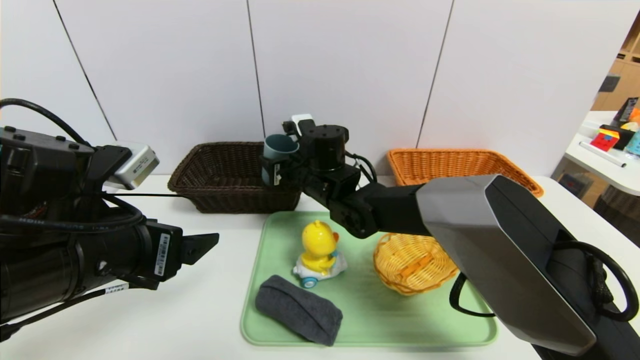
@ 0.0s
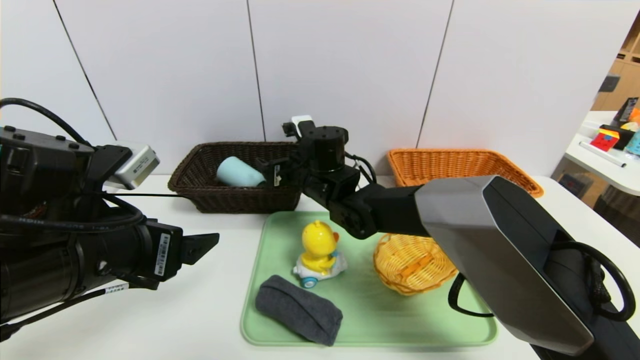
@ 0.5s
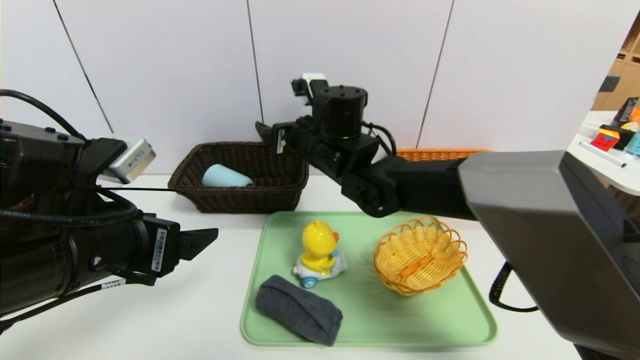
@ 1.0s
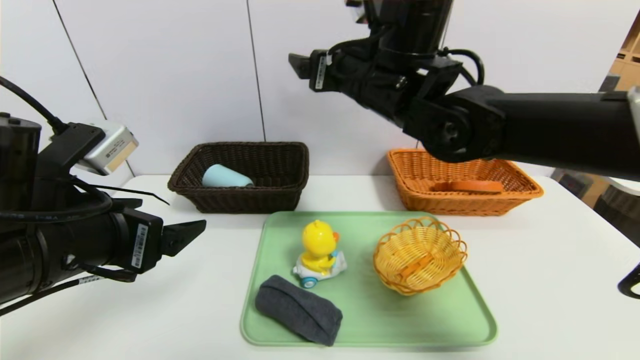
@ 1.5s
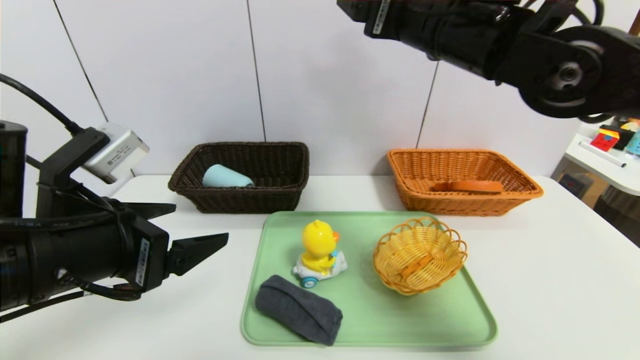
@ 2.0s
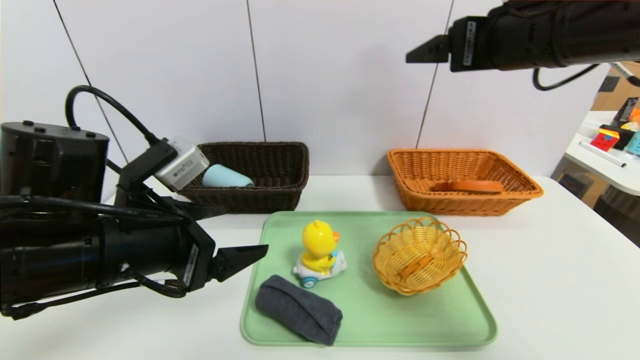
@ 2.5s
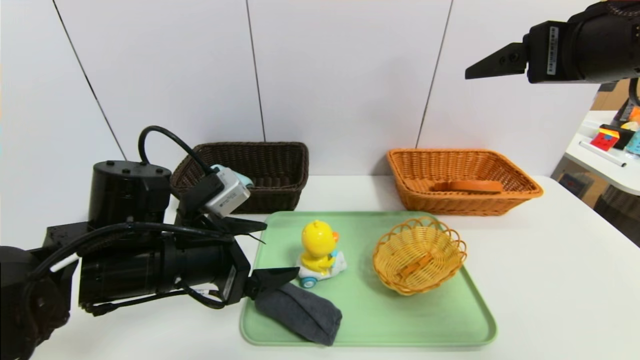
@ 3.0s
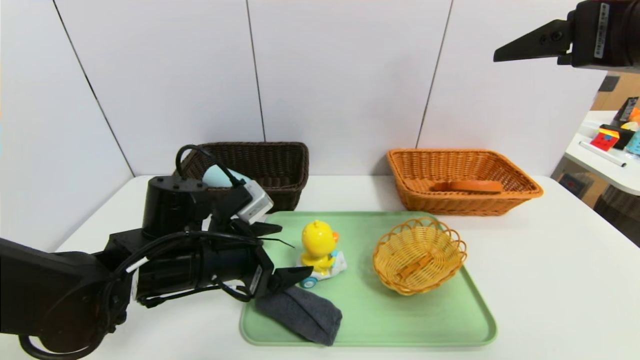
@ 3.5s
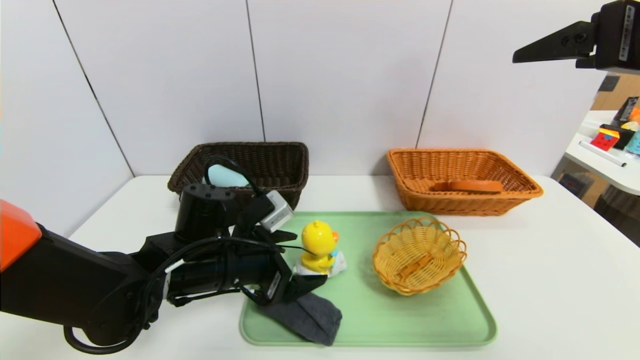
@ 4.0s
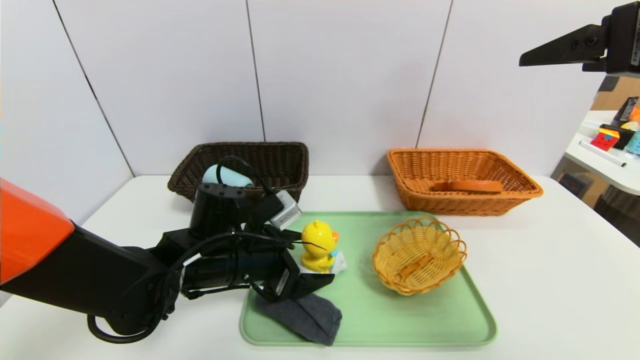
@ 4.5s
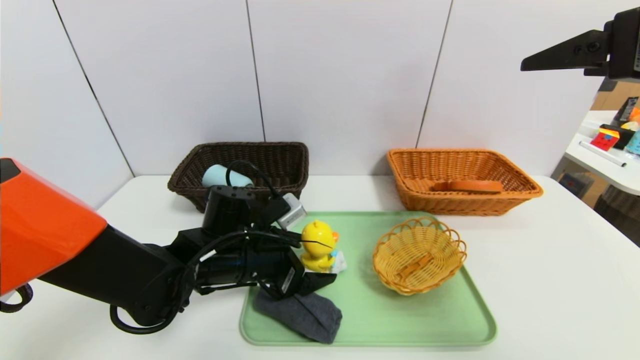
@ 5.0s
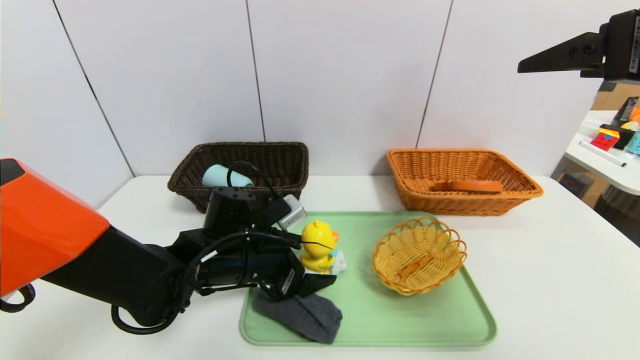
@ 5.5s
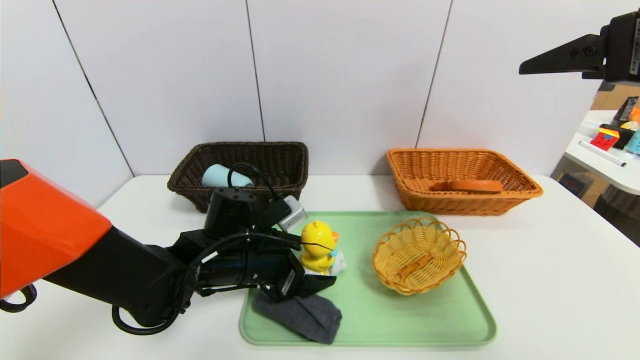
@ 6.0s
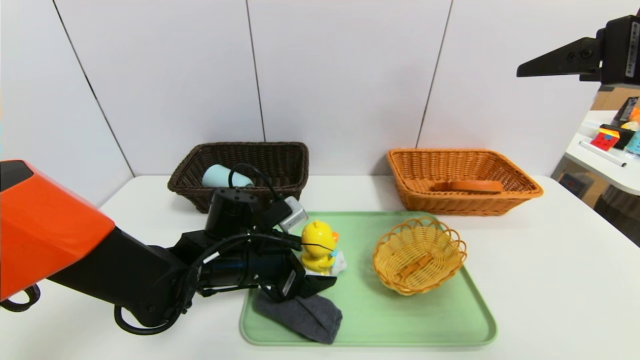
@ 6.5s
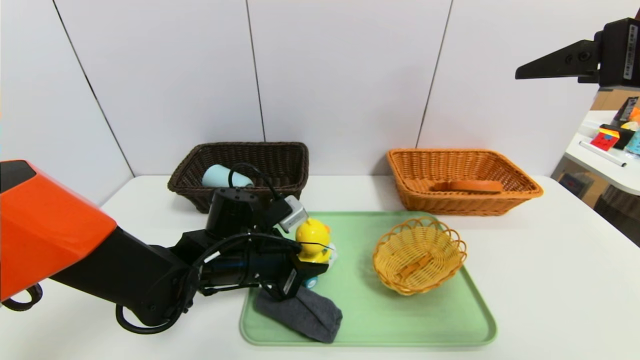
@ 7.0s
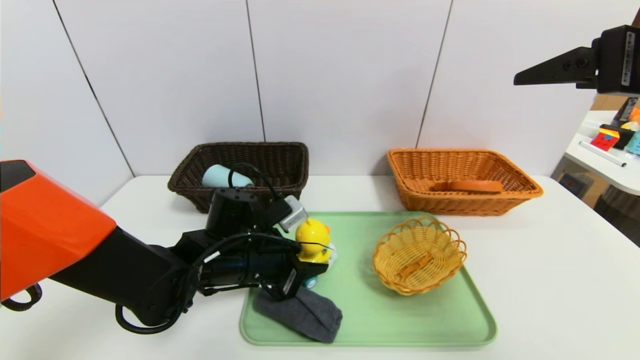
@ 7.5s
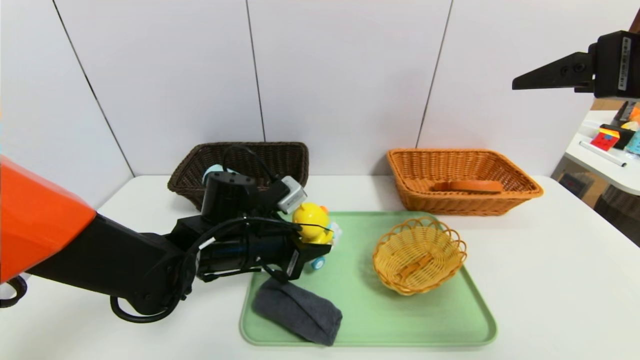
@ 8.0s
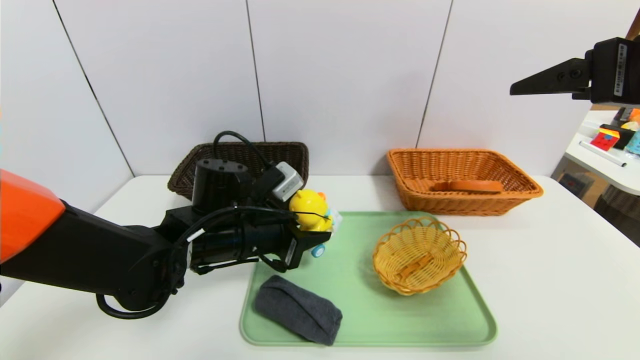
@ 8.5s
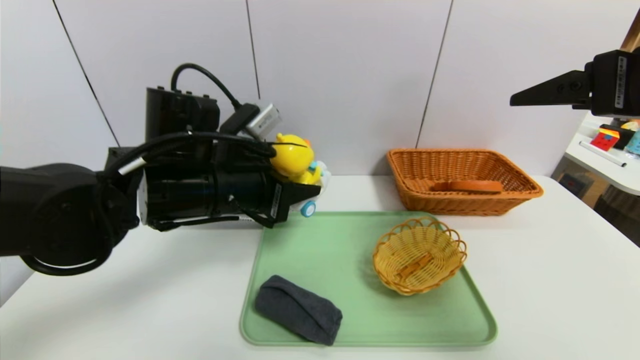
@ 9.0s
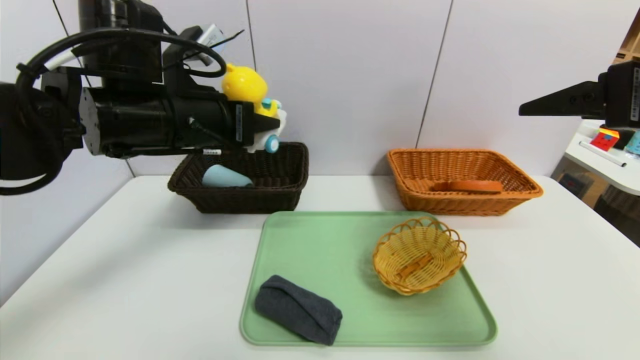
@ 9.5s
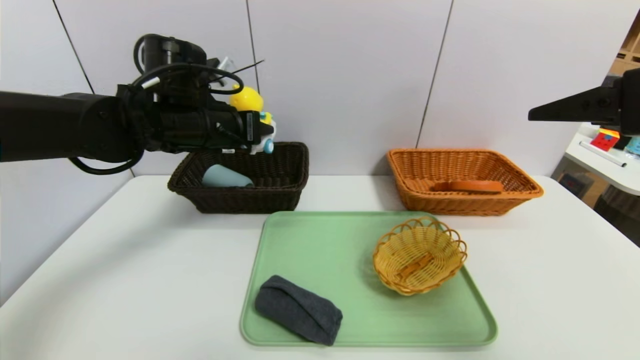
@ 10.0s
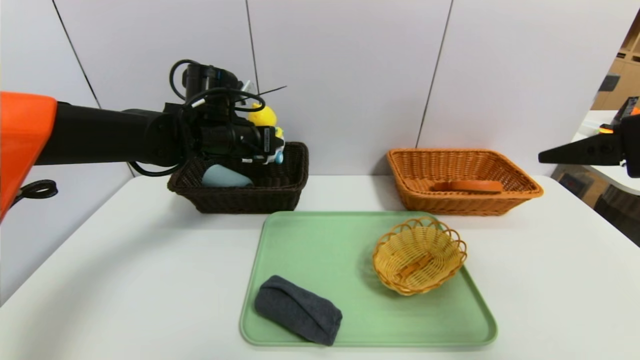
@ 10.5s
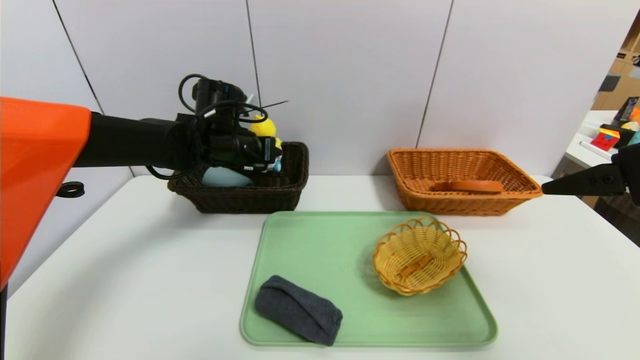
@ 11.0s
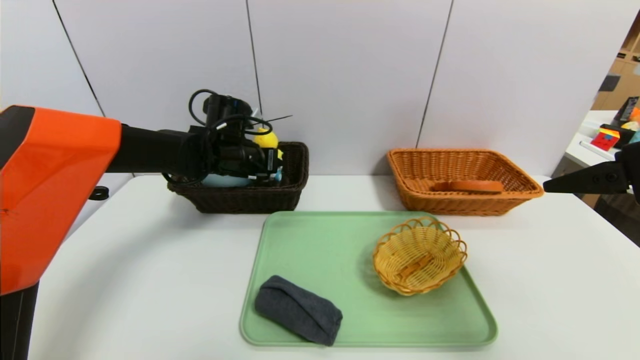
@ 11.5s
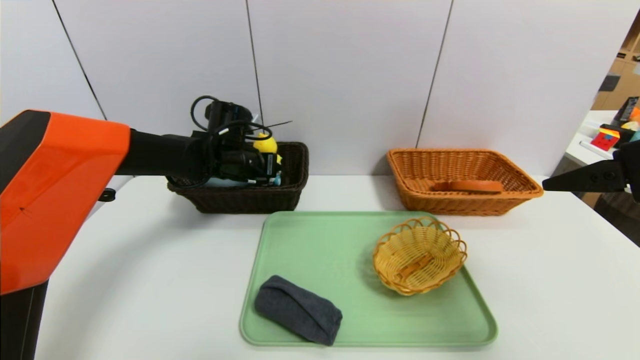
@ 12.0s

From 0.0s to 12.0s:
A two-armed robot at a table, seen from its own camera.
Task of the whole recording: place the food in the right basket with the right gripper, and place the non food items in the left basket with the left gripper.
From 0.0s to 2.0s: The right gripper shifts roughly 25 cm upward and to the right.
From 2.0s to 4.0s: The right gripper goes about 20 cm to the right and backward. Meanwhile the left gripper moves downward, forward and to the right, about 15 cm.
From 4.0s to 6.0s: The grippers move only a little.
From 6.0s to 8.0s: The left gripper closes its fingers.
From 8.0s to 10.0s: The left gripper is displaced upward, forward and to the left by roughly 15 cm.
From 10.0s to 12.0s: The left gripper shifts approximately 10 cm downward and forward.

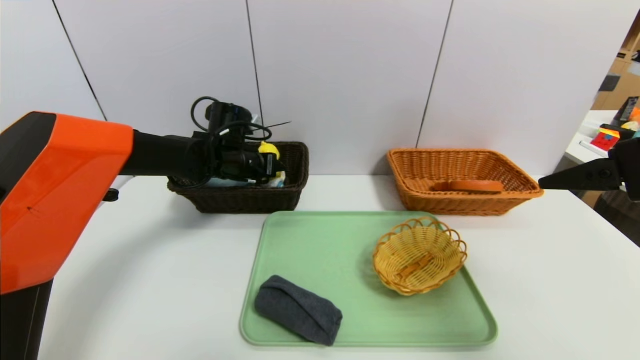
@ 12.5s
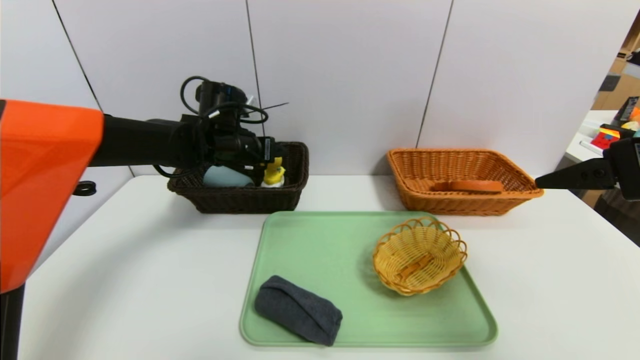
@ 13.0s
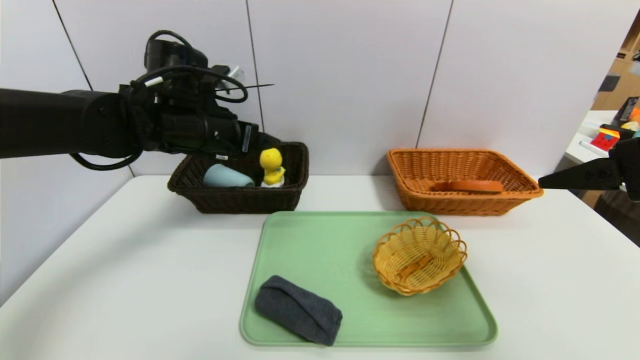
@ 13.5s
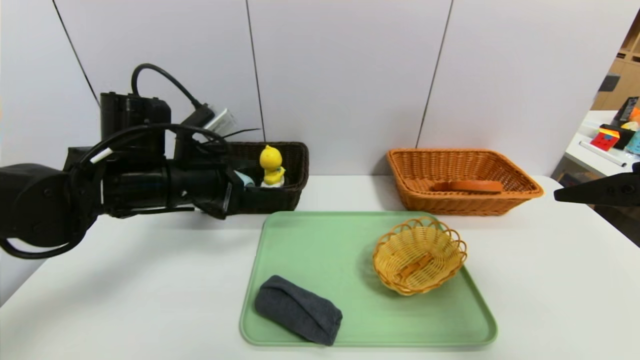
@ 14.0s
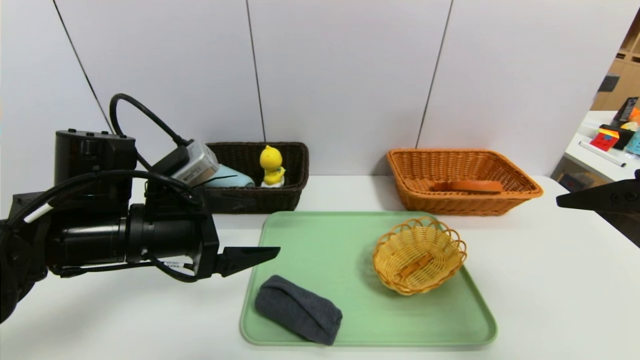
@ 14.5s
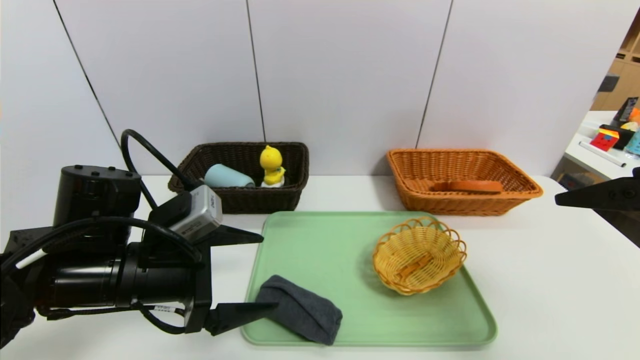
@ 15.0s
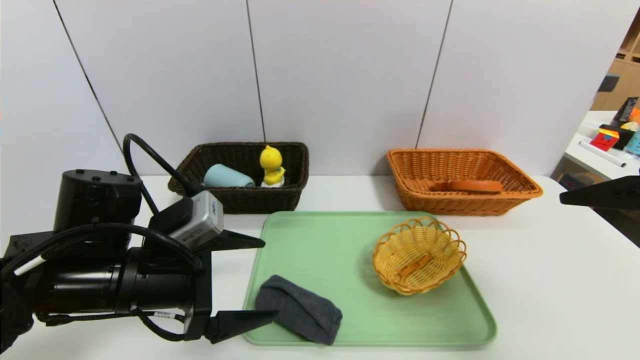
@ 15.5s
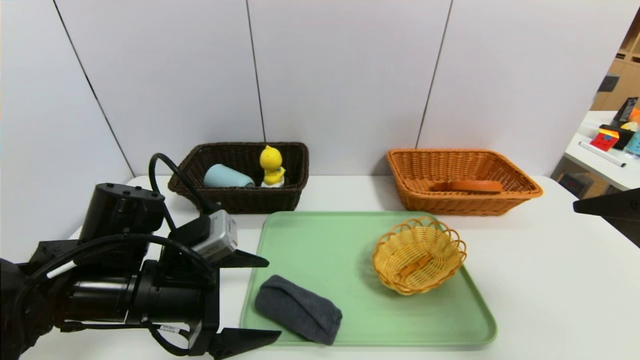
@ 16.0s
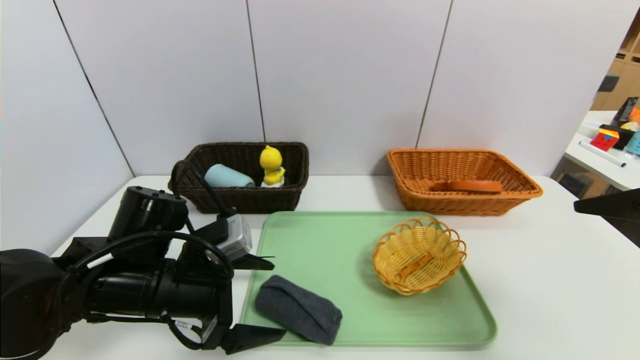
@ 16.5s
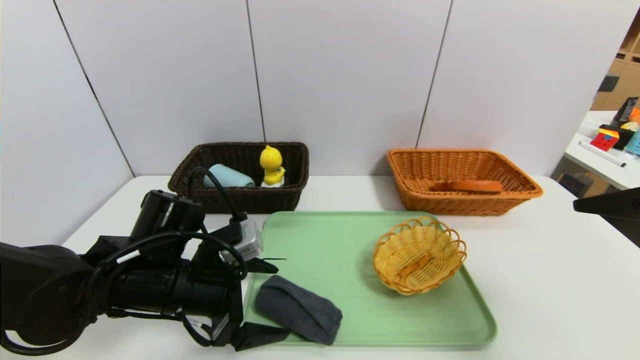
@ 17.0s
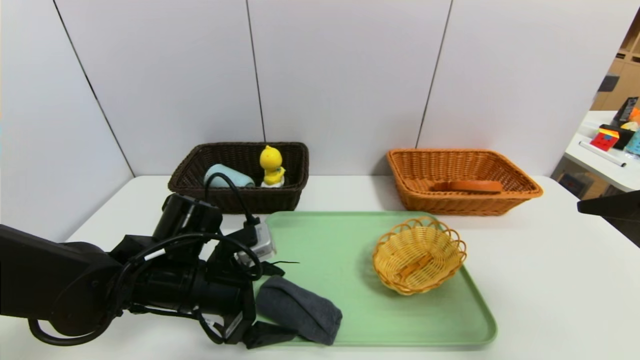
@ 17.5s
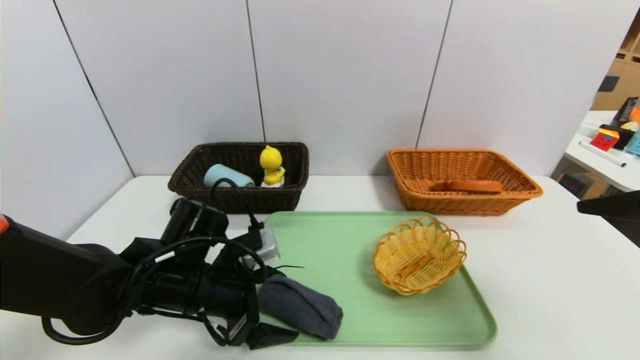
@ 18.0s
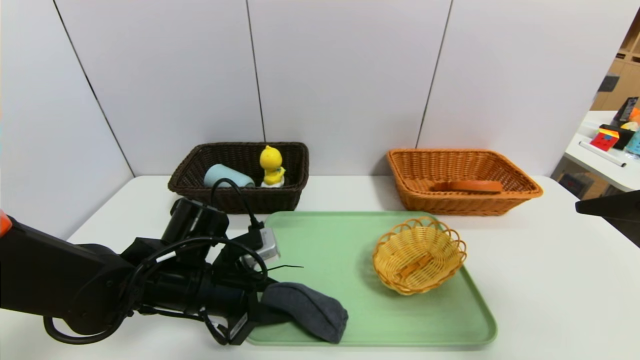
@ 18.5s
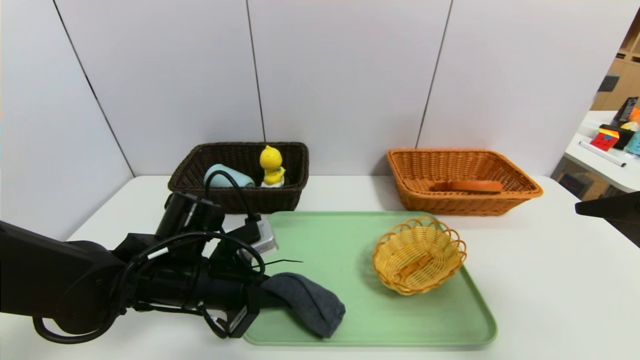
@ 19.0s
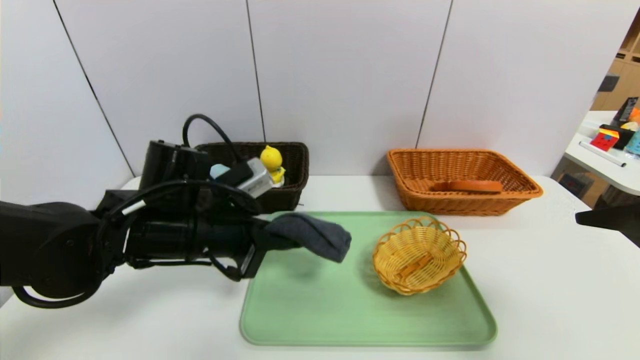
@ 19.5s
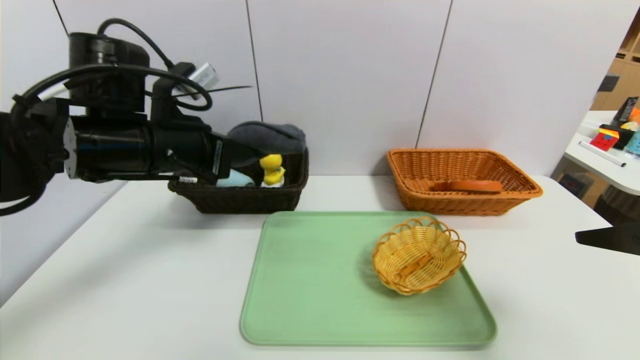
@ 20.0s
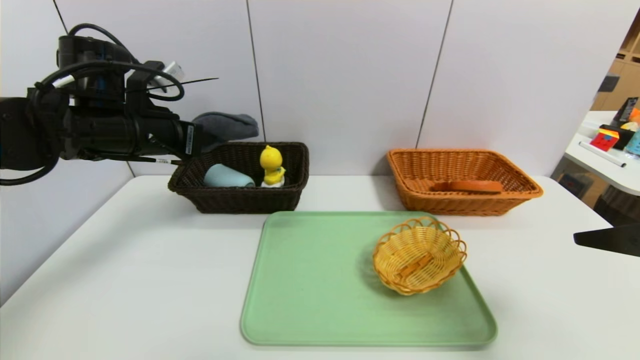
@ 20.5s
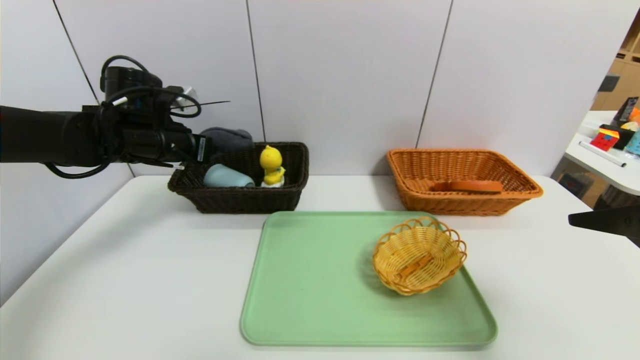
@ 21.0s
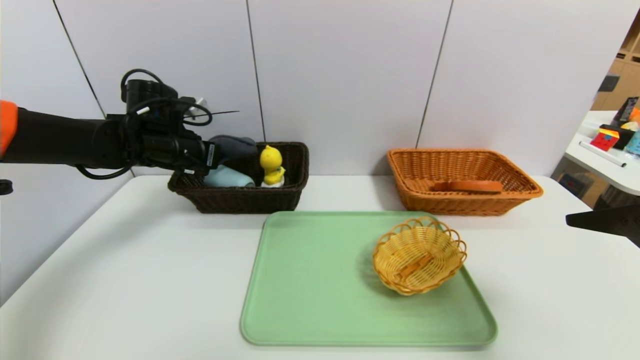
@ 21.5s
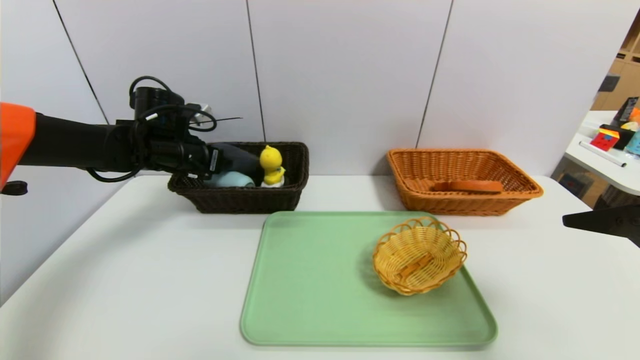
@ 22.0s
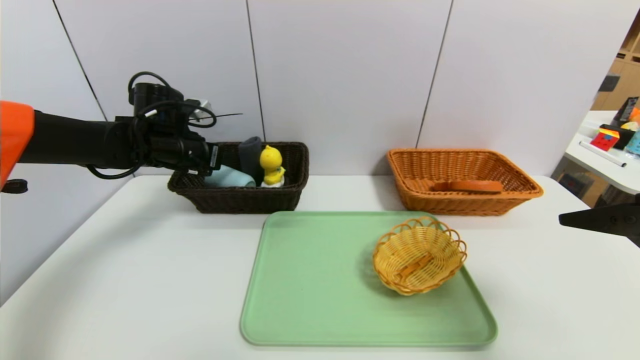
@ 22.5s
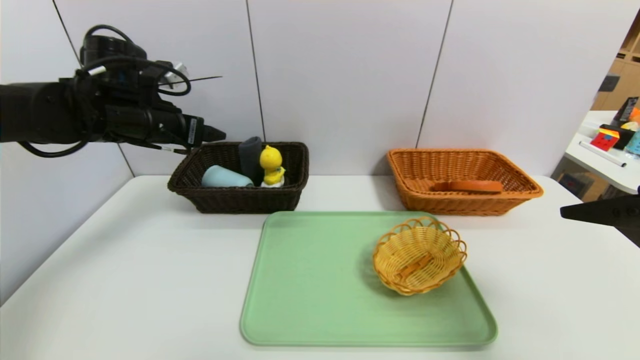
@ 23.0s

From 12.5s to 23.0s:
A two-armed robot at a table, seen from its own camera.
Task of the whole recording: place the food in the right basket with the right gripper, and place the non food items in the left basket with the left gripper.
From 12.5s to 14.5s: The left gripper shifts approximately 20 cm backward.
From 14.5s to 16.5s: The left gripper travels downward by about 5 cm.
From 16.5s to 19.0s: The left gripper closes.
From 19.0s to 21.0s: The left gripper travels forward, upward and to the left by approximately 20 cm.
From 21.0s to 23.0s: The left gripper opens its fingers.
